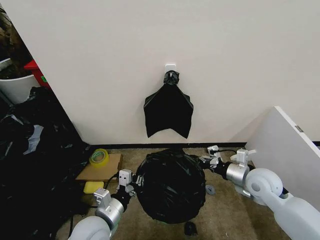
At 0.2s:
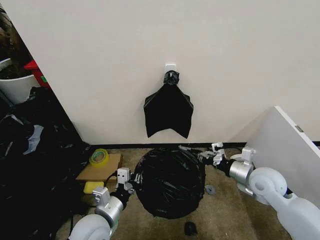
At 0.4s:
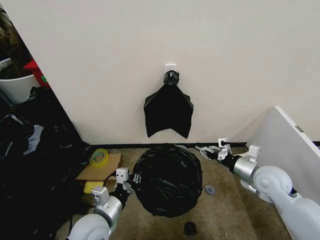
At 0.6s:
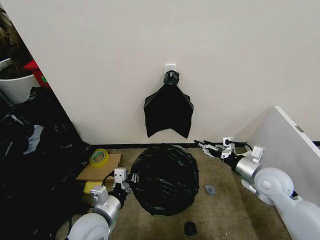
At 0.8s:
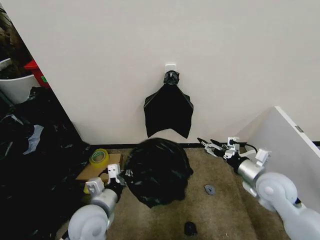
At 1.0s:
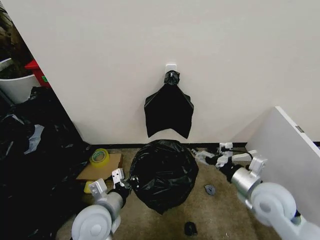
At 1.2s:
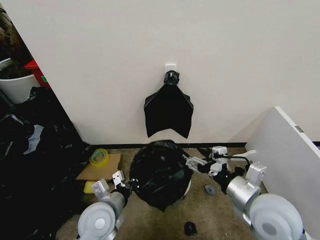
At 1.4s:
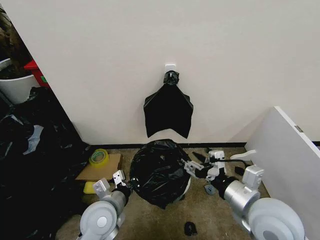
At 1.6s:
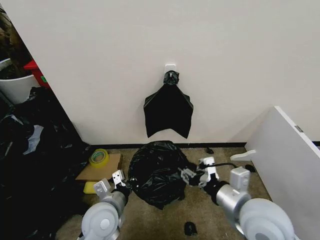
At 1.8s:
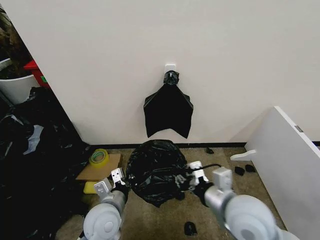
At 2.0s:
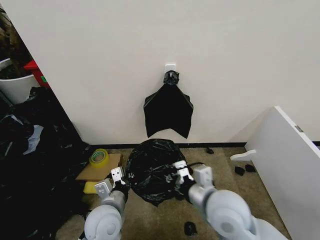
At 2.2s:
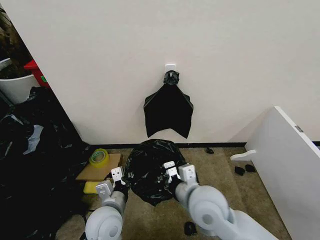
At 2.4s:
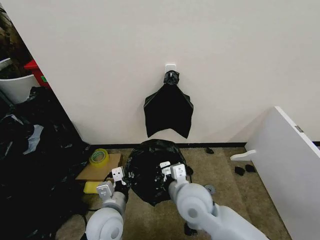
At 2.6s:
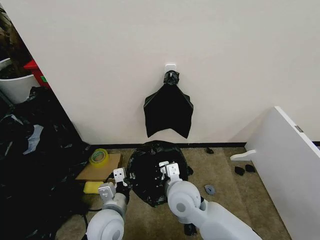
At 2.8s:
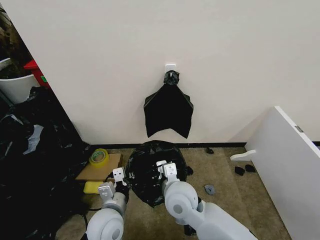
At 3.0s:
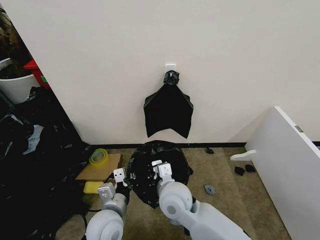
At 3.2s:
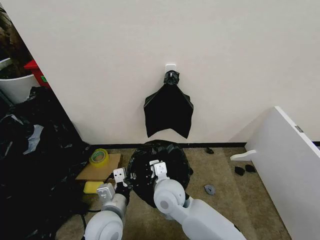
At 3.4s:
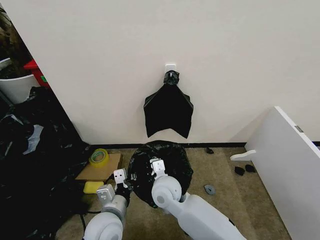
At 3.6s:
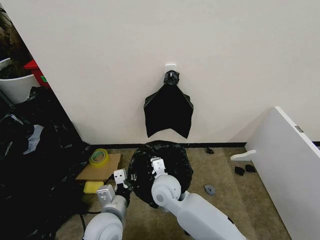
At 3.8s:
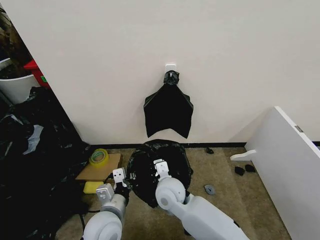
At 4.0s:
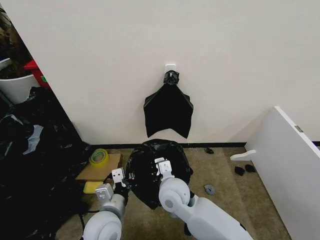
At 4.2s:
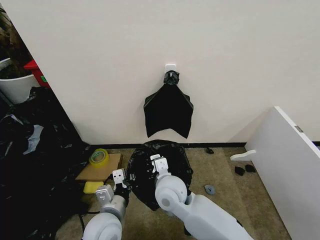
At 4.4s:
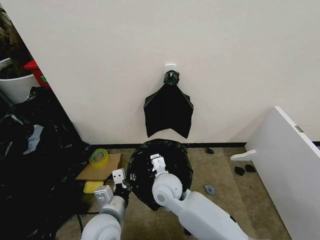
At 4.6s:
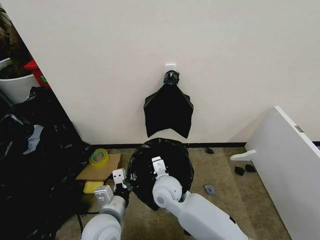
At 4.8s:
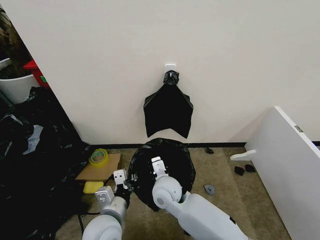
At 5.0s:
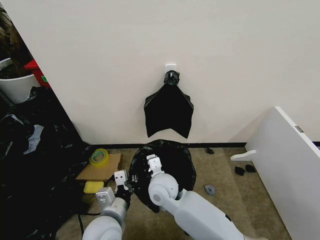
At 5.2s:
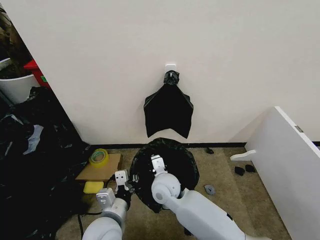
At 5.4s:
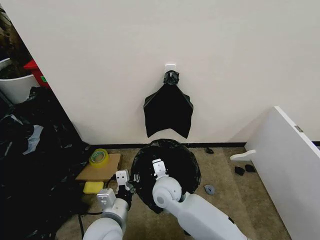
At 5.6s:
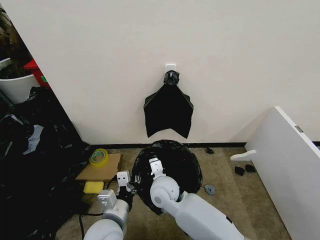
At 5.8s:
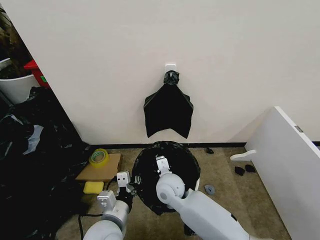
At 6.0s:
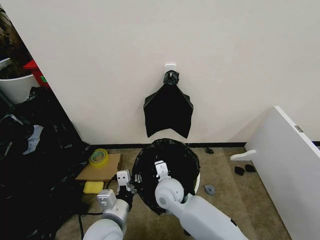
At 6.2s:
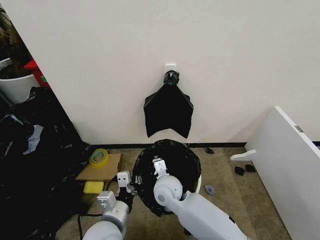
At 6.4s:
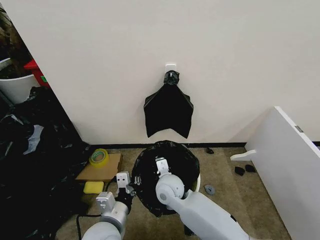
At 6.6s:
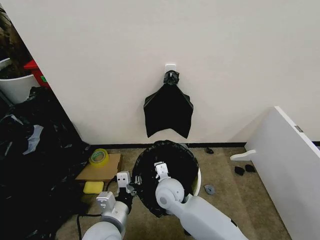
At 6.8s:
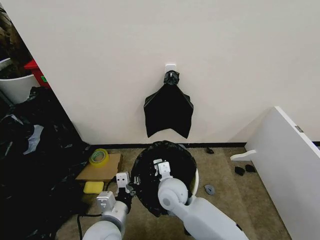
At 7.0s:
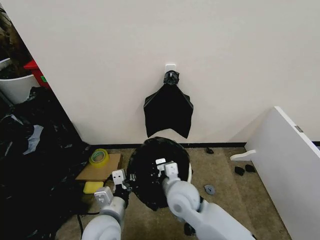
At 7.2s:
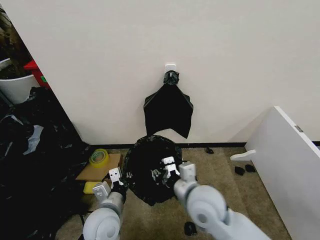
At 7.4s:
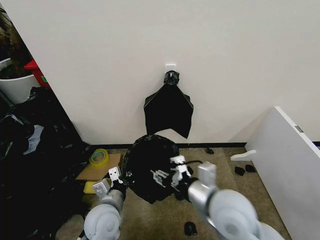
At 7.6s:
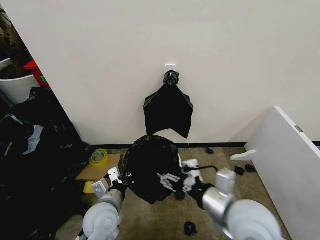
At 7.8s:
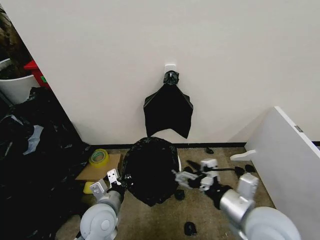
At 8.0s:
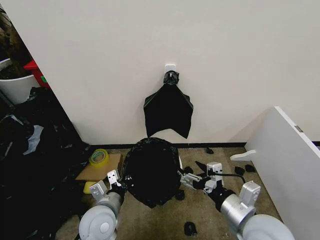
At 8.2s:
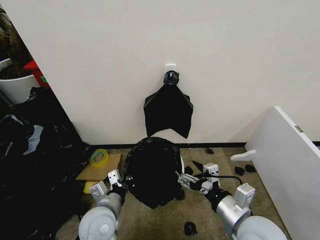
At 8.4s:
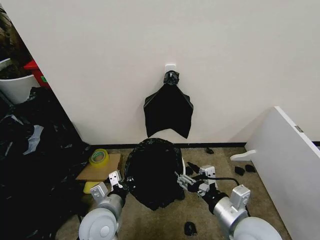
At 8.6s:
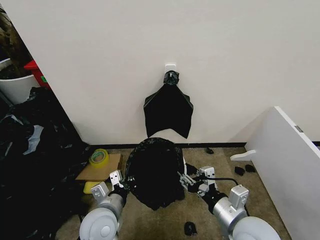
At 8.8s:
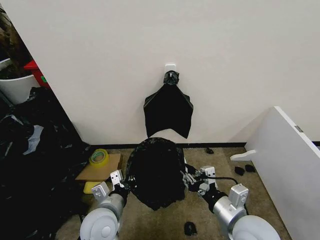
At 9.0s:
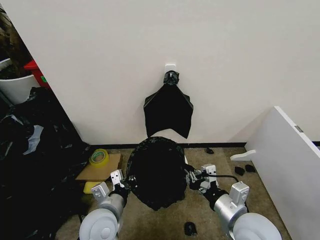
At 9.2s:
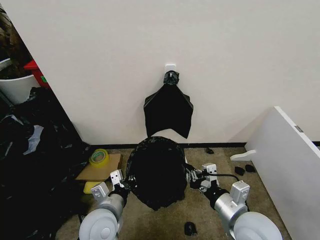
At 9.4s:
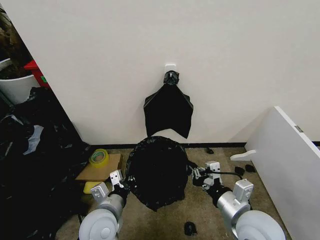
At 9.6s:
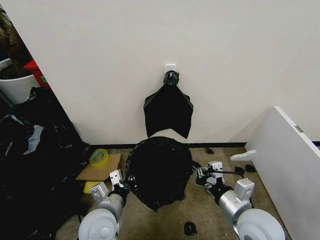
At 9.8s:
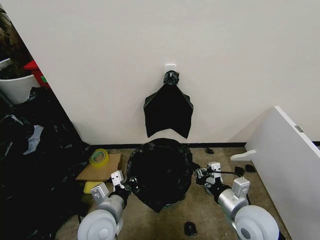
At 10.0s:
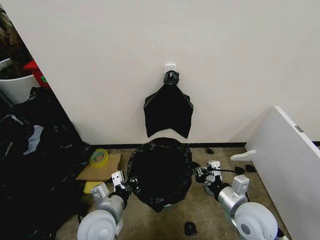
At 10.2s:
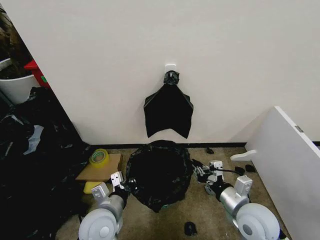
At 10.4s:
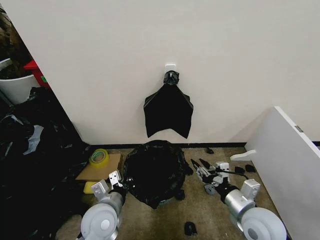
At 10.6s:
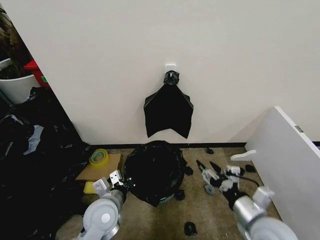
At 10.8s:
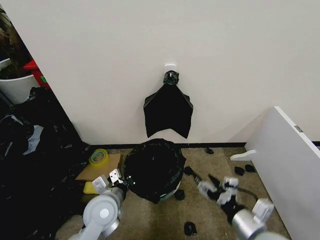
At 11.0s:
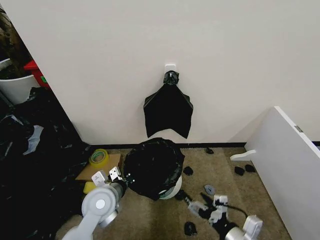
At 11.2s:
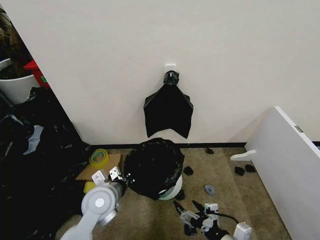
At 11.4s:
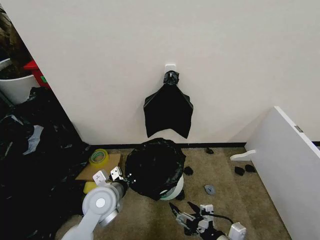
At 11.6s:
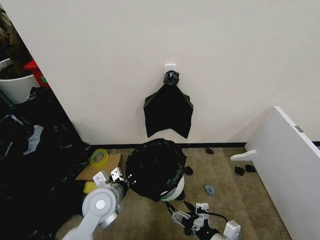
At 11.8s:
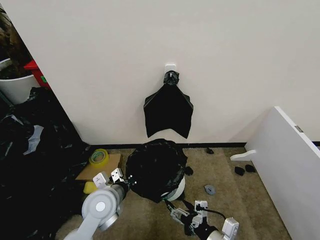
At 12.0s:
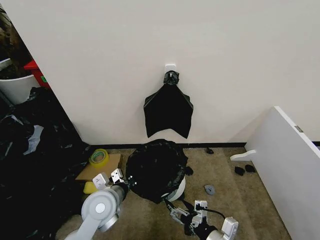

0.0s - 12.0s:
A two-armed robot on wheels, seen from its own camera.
Task of the whole recording: Place the garbage bag over the trash bin.
0.0s - 1.6s: The right gripper heads backward, to the left and upward, covering some 20 cm, and opens its fingers.
1.6s - 3.0s: The right gripper moves to the left, downward and forward, approximately 20 cm, and closes up.
3.0s - 4.4s: The right gripper shifts by about 5 cm.
4.4s - 6.0s: The grippers stay close to where they were, moving slightly.
6.0s - 7.6s: The left gripper shifts approximately 5 cm forward. The right gripper shifts roughly 25 cm to the right, upward and backward, and opens.
7.6s - 9.0s: The right gripper shifts some 5 cm downward, and closes.
9.0s - 10.4s: The right gripper changes place by about 5 cm.
10.4s - 12.0s: The right gripper shifts about 10 cm backward, downward and to the left, and opens up.

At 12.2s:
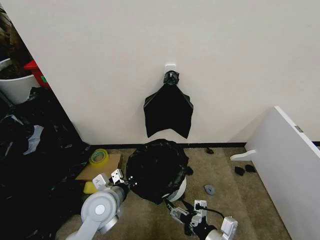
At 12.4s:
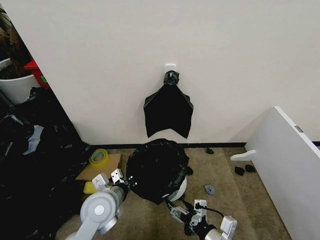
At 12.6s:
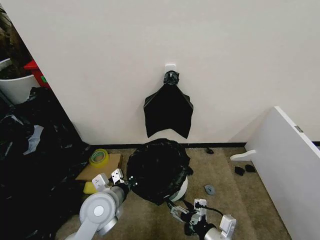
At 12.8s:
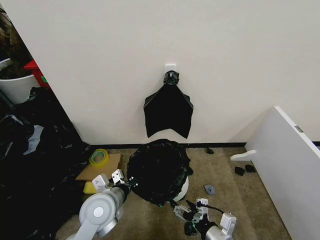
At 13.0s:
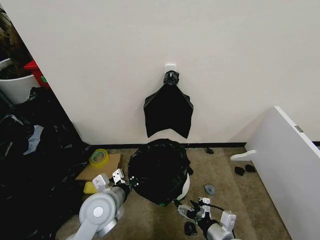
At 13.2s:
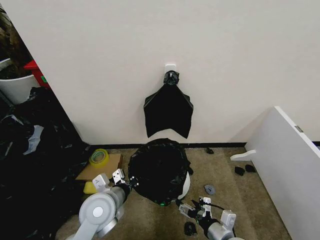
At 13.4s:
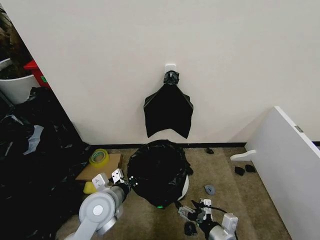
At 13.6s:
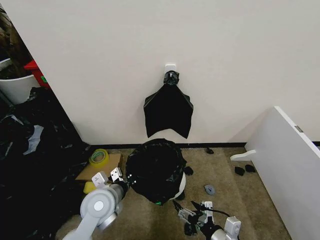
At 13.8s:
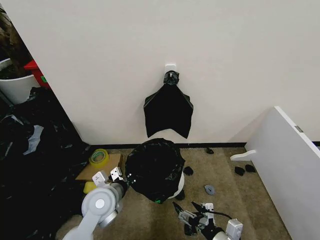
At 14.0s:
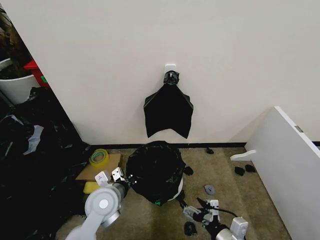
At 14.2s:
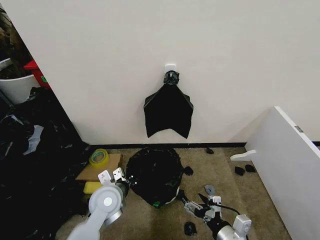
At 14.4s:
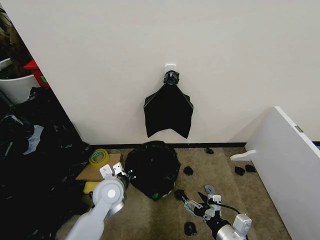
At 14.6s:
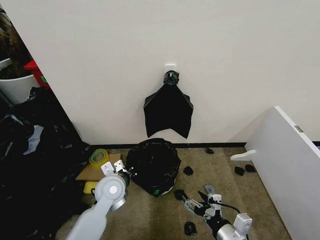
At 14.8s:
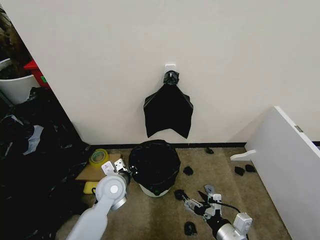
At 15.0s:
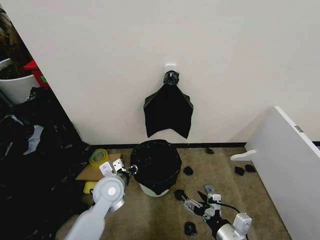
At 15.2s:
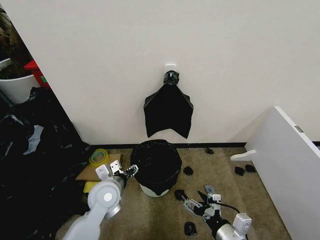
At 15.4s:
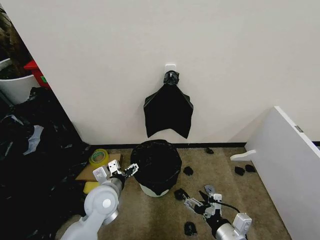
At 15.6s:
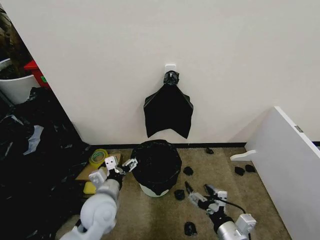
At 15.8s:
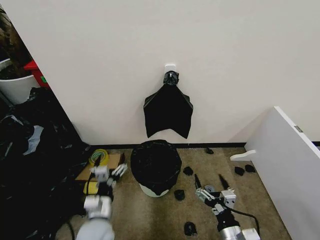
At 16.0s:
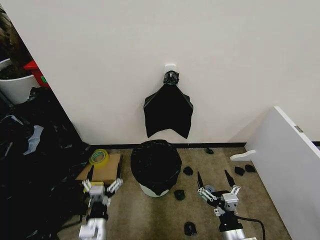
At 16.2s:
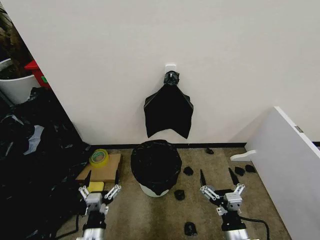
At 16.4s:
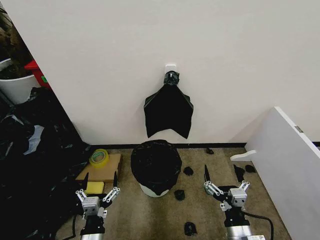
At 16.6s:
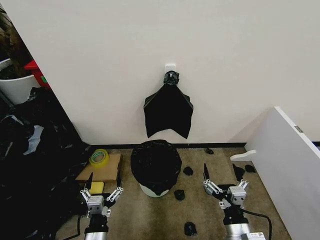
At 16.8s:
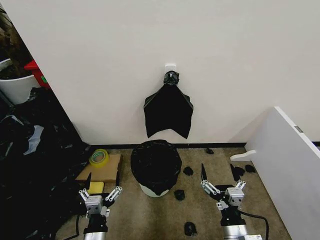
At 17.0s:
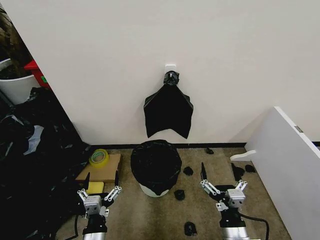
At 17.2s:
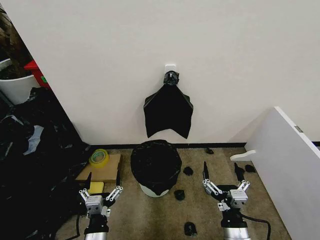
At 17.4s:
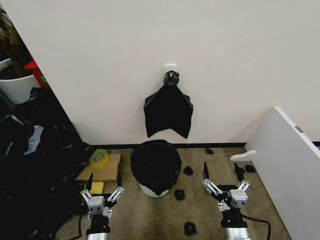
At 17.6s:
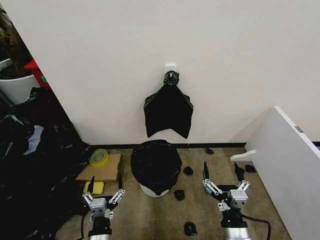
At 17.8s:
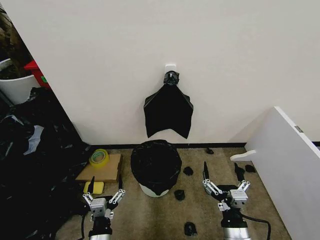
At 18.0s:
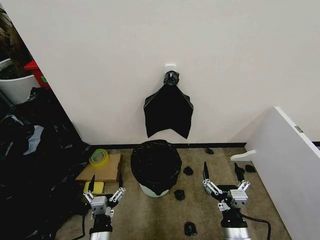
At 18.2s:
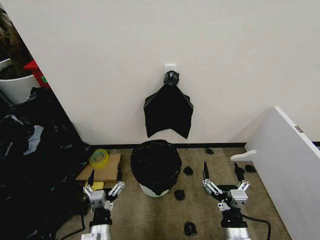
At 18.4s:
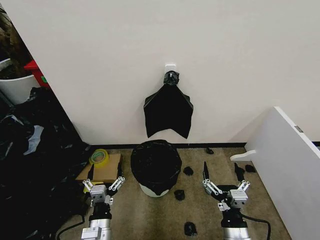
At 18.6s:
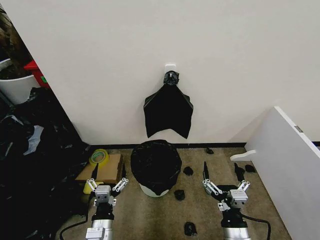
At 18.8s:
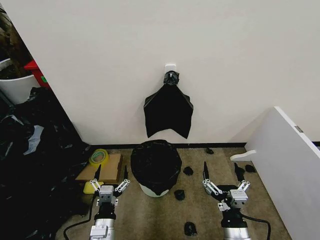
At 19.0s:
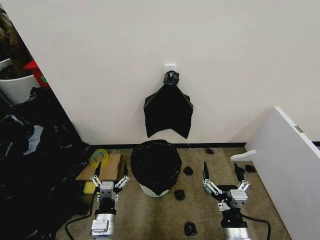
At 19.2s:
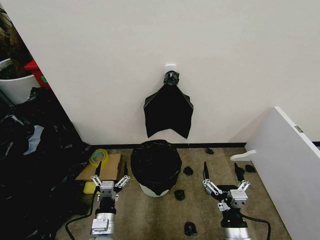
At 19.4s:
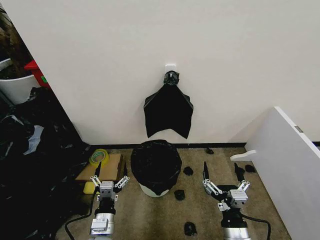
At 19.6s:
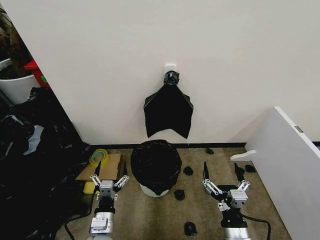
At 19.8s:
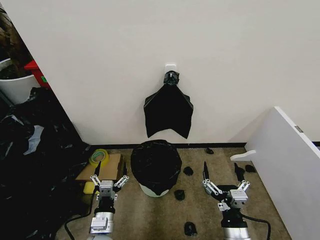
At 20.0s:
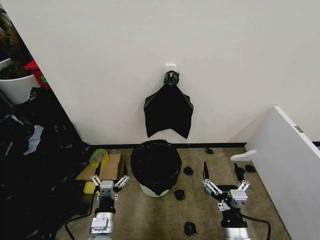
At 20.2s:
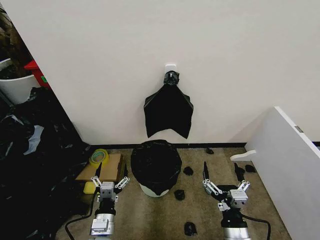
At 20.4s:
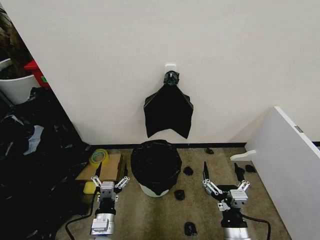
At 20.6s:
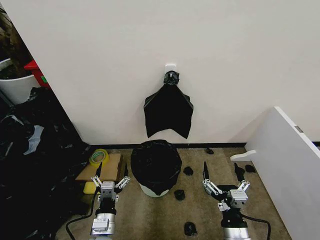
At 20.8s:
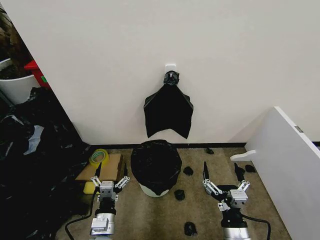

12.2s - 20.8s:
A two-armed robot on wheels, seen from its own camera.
Task of the whole recording: Place the garbage bag over the trash bin.
12.2s - 13.6s: The grippers stay close to where they were, moving slightly.
13.6s - 15.0s: The left gripper opens its fingers.
15.0s - 16.6s: The left gripper shifts roughly 20 cm backward, and opens its fingers.
16.6s - 18.0s: The grippers make only small movements.
18.0s - 19.4s: The left gripper moves forward, roughly 5 cm.
19.4s - 20.8s: Both grippers stay put.

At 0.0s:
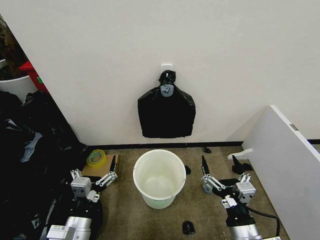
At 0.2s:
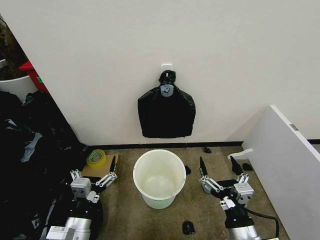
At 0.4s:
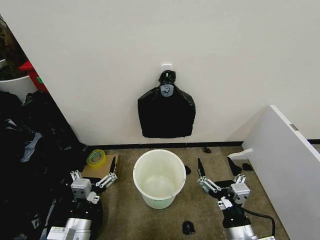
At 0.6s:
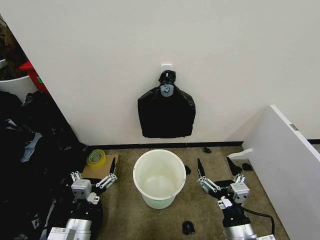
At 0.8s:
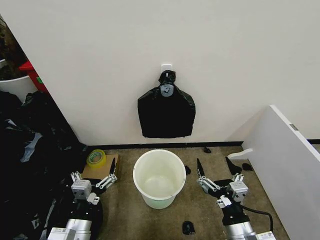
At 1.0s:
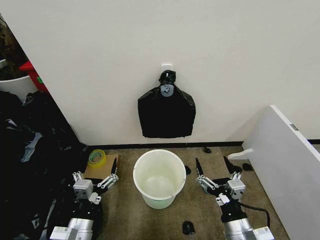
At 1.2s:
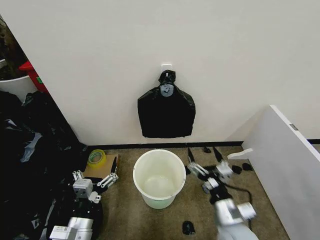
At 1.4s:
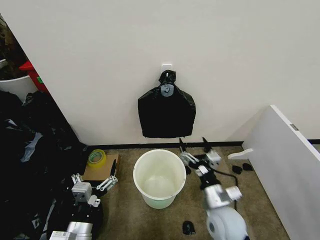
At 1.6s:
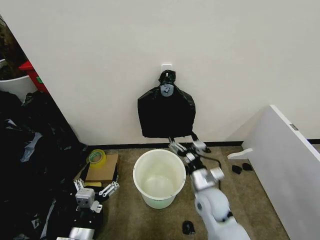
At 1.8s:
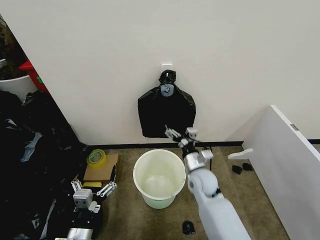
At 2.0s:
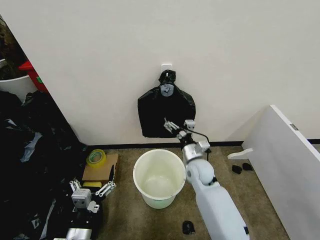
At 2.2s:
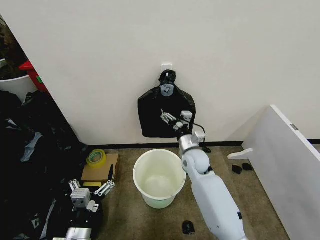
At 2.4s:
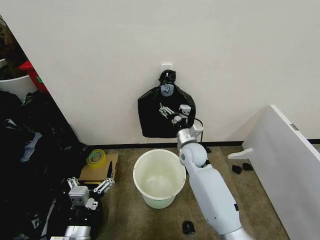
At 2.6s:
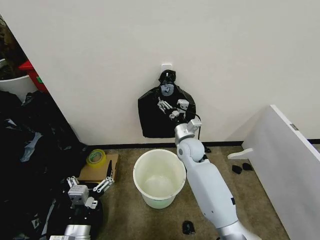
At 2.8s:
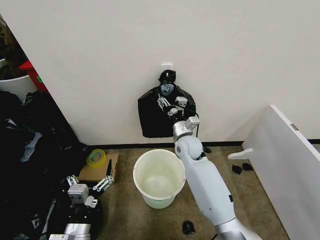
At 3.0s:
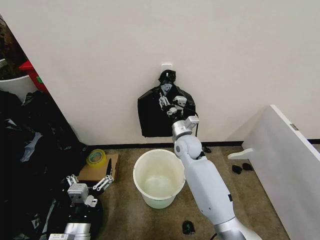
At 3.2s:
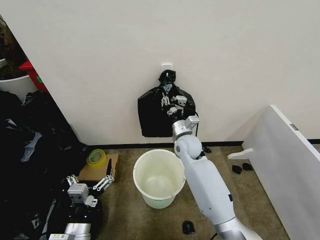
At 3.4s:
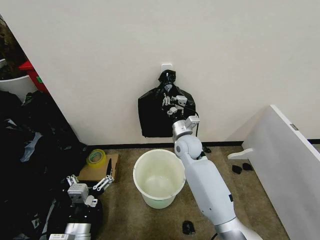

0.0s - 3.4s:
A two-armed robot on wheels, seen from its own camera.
Task of the whole recording: Place the garbage bag over the trash bin.
1.6s - 3.4s: The right gripper travels forward by roughly 20 cm, and closes up.
